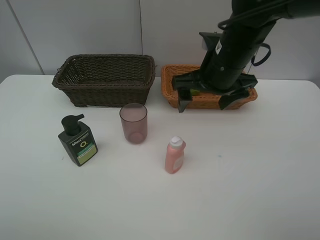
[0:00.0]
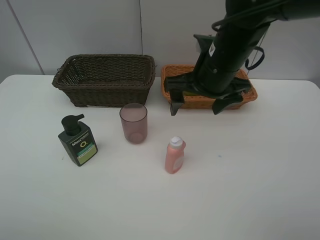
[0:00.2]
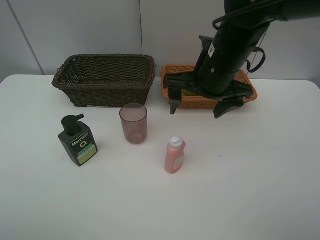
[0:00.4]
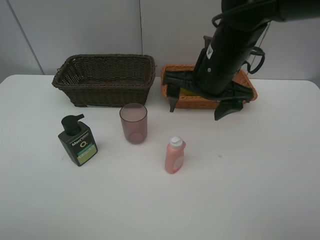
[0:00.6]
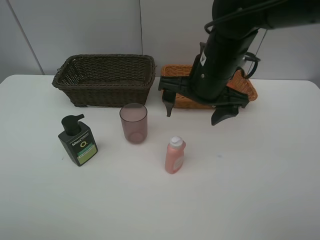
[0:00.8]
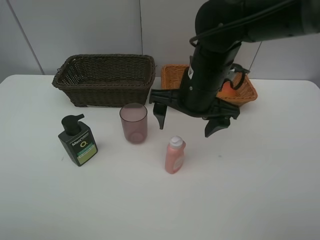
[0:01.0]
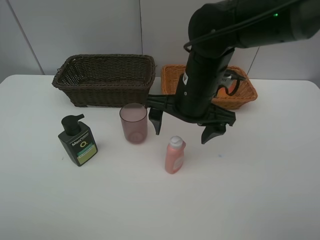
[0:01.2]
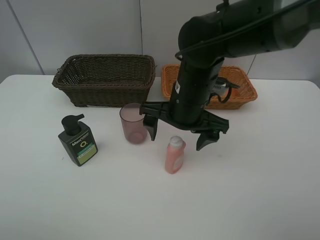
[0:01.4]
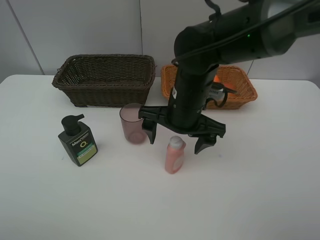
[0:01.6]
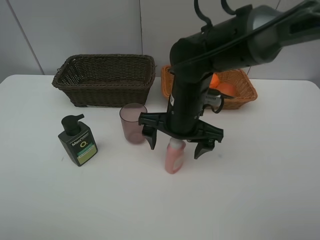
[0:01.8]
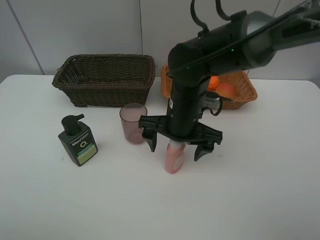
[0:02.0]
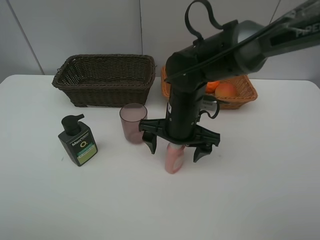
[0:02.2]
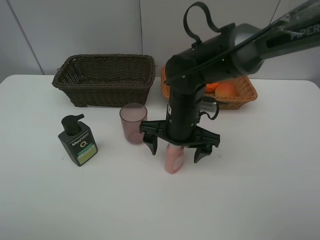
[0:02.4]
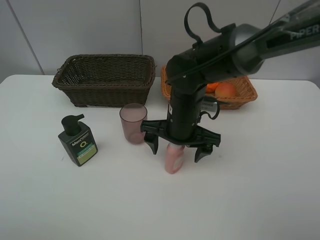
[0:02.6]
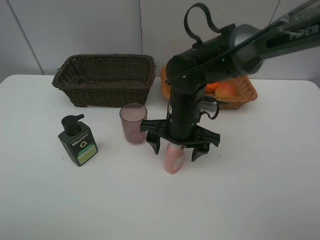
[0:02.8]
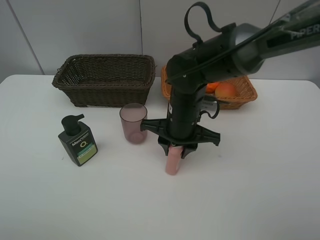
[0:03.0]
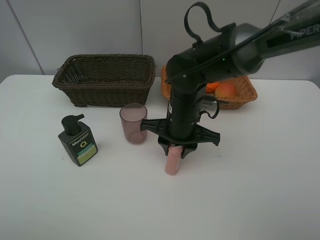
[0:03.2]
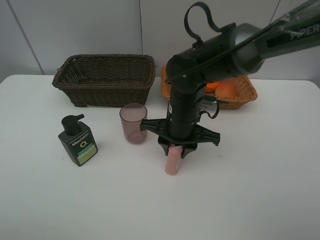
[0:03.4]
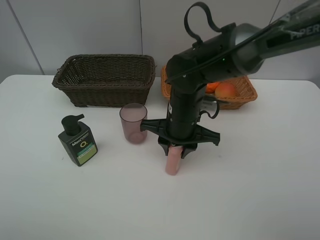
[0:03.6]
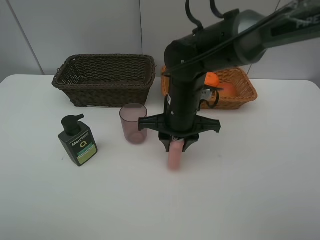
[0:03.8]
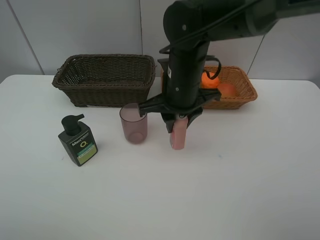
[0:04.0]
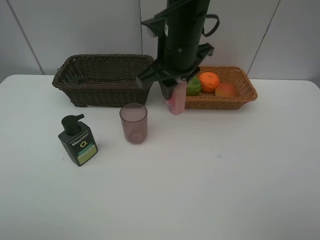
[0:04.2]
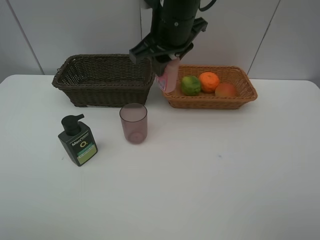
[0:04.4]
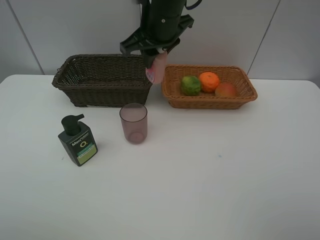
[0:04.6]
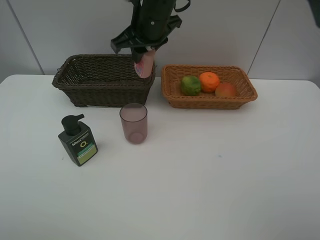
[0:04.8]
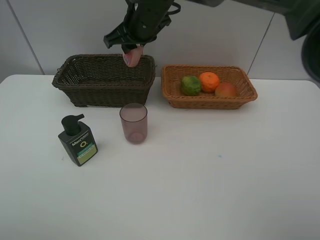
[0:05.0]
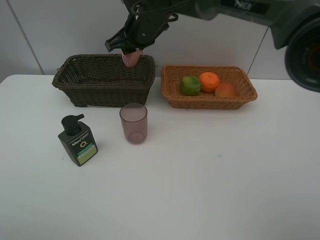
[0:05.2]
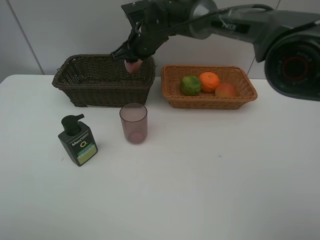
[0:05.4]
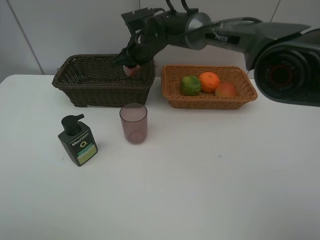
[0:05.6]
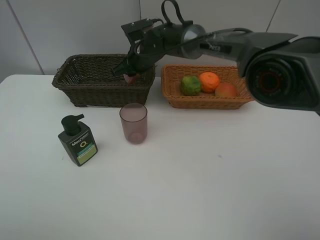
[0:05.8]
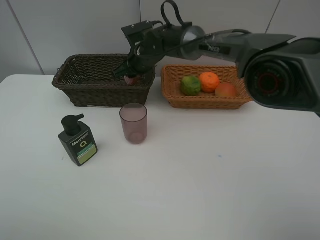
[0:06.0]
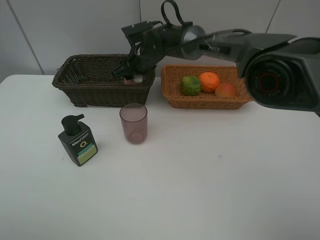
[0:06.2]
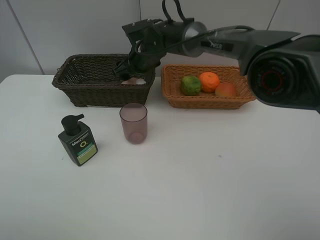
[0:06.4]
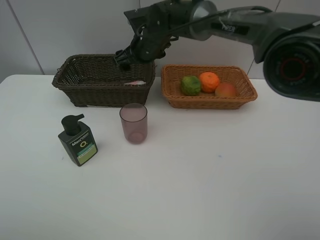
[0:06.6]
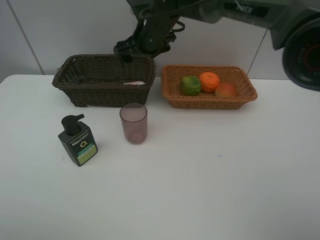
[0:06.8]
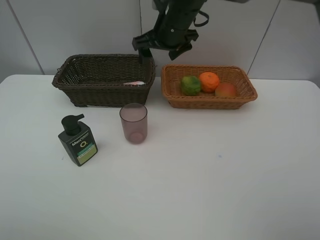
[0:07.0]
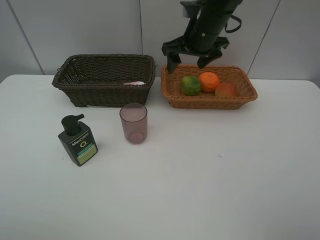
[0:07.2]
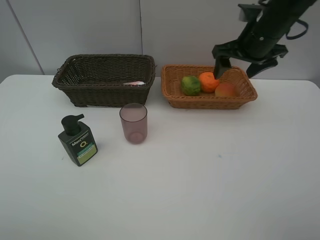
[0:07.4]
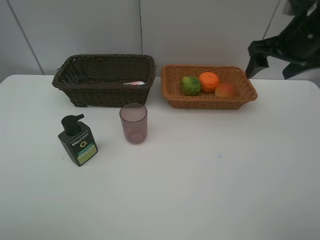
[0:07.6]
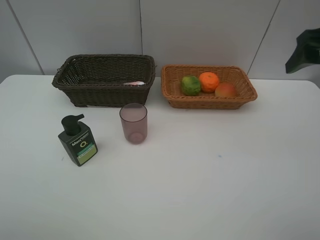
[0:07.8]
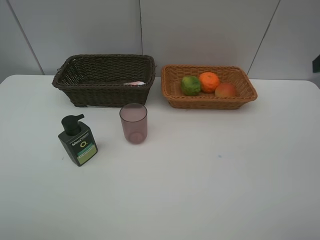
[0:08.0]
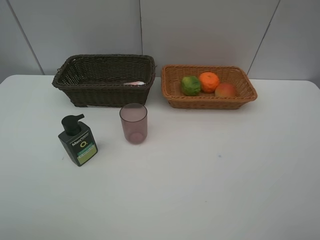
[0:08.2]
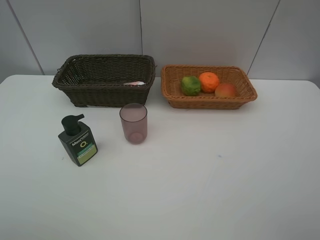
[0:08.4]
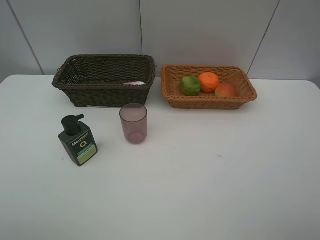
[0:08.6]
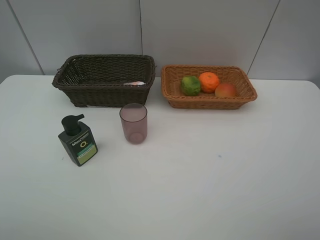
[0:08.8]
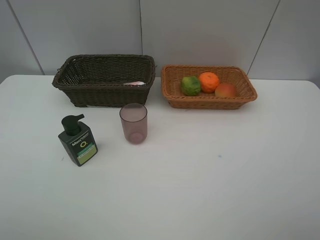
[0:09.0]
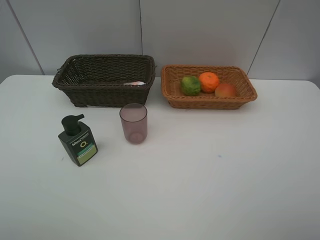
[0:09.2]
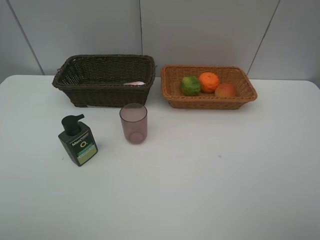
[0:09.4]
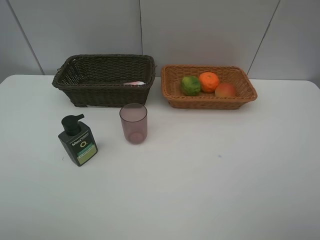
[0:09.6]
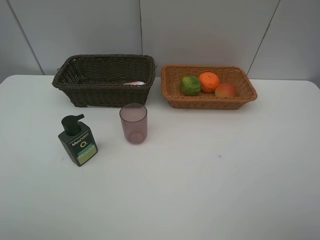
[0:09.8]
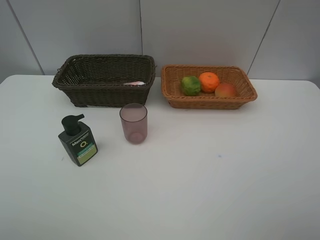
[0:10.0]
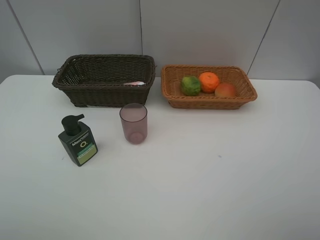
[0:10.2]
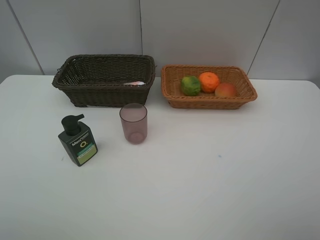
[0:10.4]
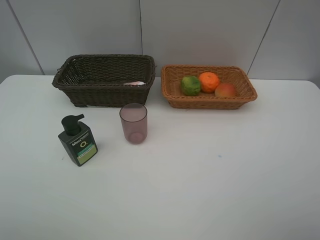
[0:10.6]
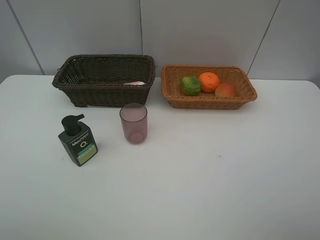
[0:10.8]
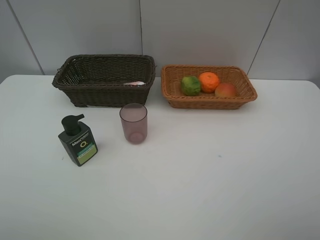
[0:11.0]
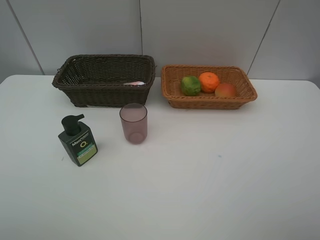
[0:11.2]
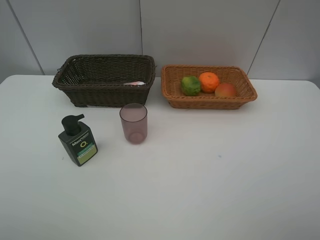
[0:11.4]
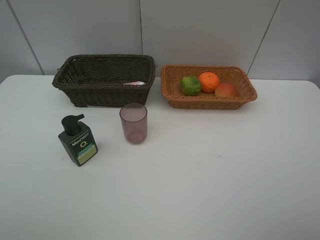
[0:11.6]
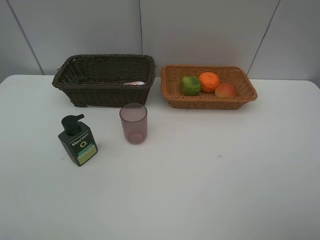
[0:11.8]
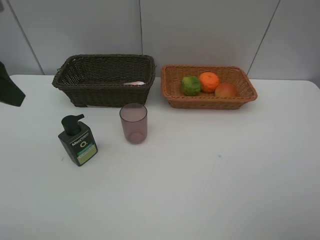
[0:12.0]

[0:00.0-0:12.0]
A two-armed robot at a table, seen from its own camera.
Task of the whole recording: place multiple objects separately in different baskets.
0:00.0 to 0:01.6: The right gripper is displaced to the left and downward by approximately 10 cm.
0:01.6 to 0:03.0: The right gripper closes its fingers.
0:03.0 to 0:04.4: The right gripper goes roughly 15 cm upward.
0:04.4 to 0:06.0: The right gripper moves downward and forward, some 20 cm.
0:06.0 to 0:07.6: The right gripper travels to the right, backward and upward by some 35 cm, and opens up.
0:07.6 to 0:09.0: The right gripper is displaced backward by approximately 35 cm.
0:10.4 to 0:12.0: The left gripper goes roughly 20 cm forward.

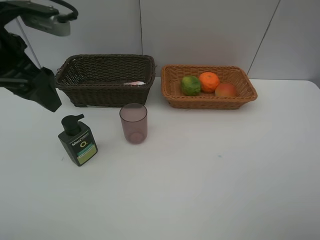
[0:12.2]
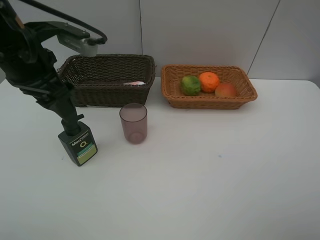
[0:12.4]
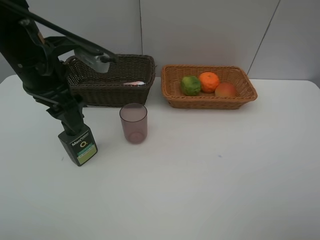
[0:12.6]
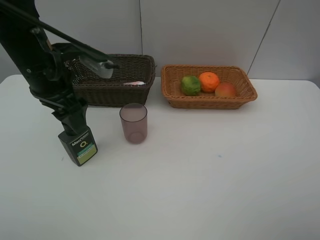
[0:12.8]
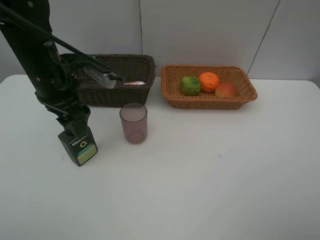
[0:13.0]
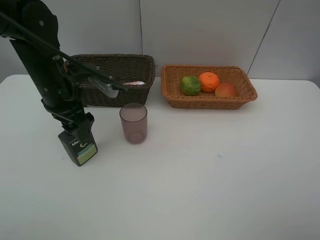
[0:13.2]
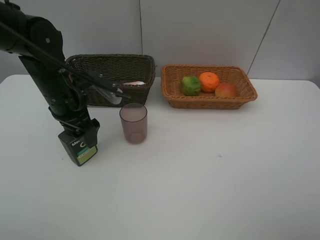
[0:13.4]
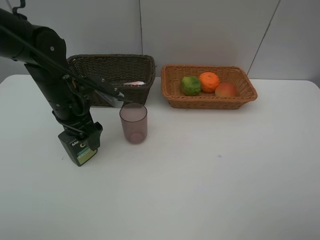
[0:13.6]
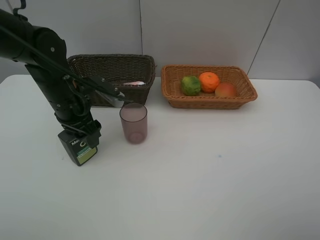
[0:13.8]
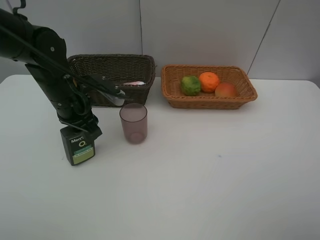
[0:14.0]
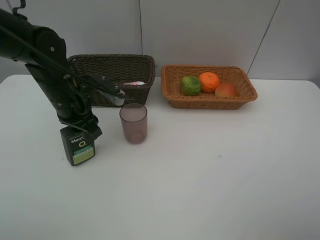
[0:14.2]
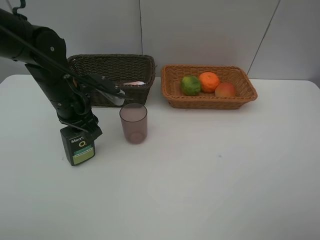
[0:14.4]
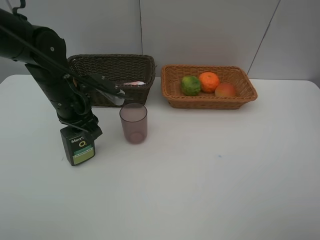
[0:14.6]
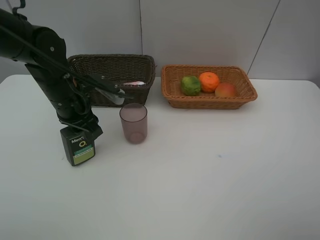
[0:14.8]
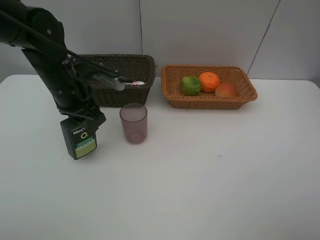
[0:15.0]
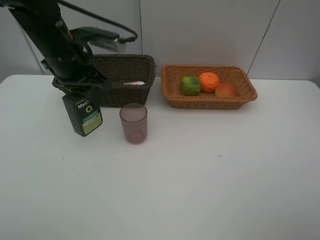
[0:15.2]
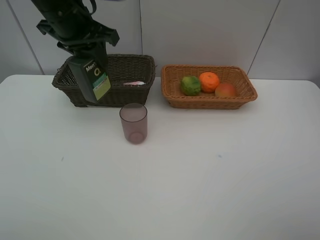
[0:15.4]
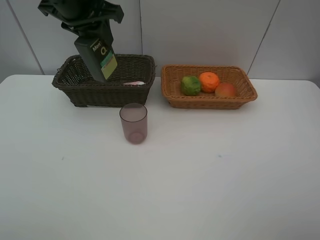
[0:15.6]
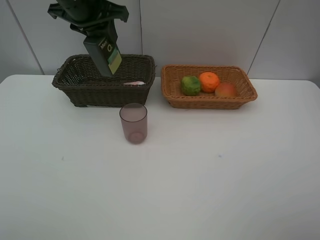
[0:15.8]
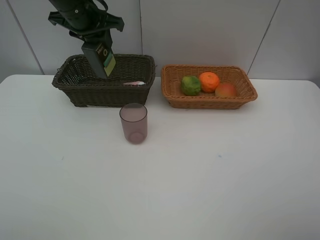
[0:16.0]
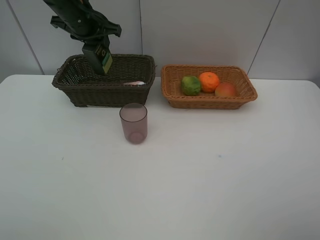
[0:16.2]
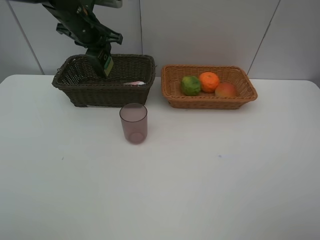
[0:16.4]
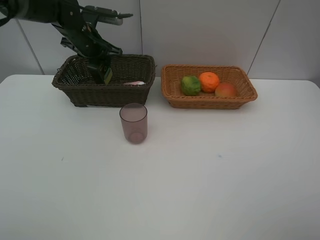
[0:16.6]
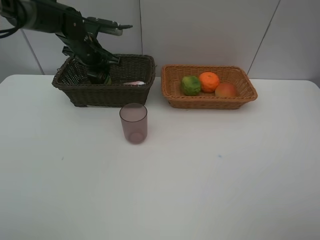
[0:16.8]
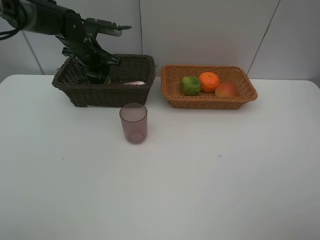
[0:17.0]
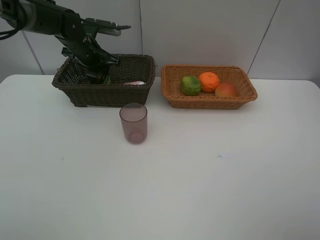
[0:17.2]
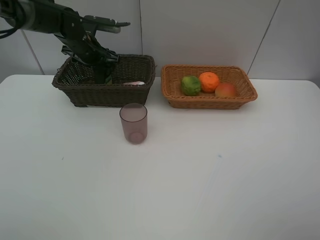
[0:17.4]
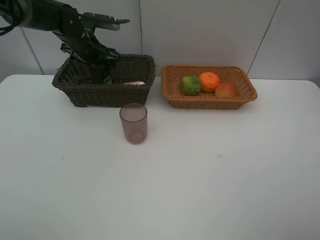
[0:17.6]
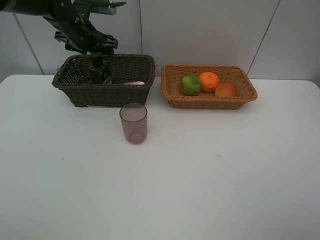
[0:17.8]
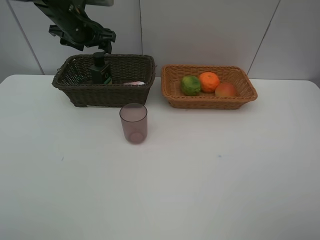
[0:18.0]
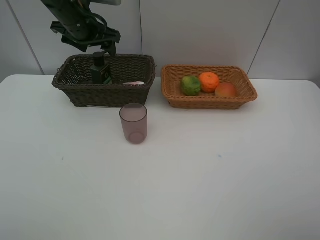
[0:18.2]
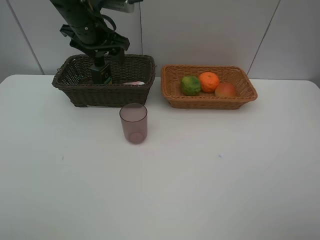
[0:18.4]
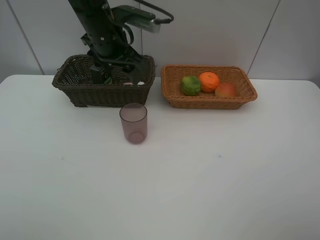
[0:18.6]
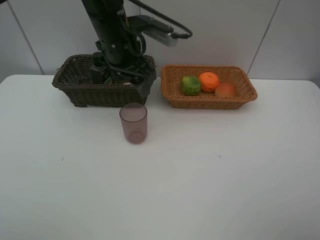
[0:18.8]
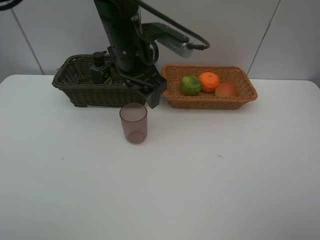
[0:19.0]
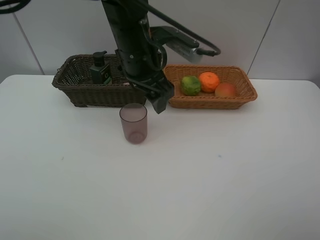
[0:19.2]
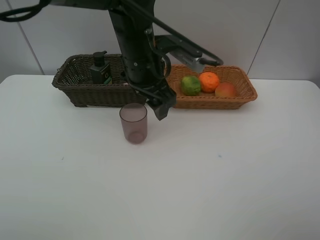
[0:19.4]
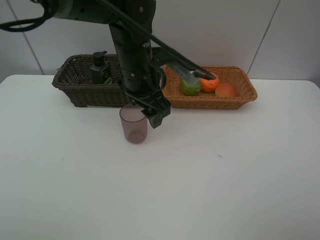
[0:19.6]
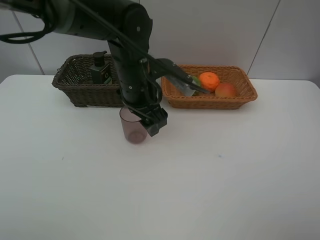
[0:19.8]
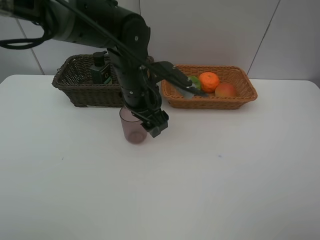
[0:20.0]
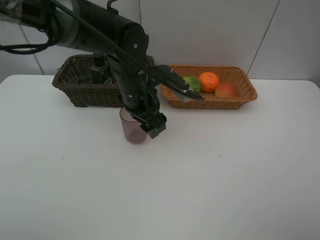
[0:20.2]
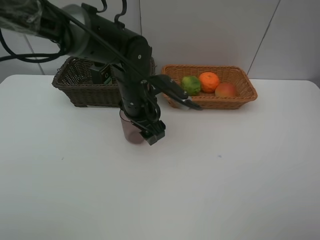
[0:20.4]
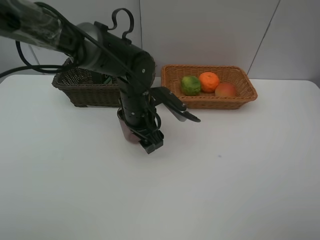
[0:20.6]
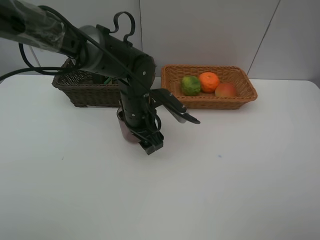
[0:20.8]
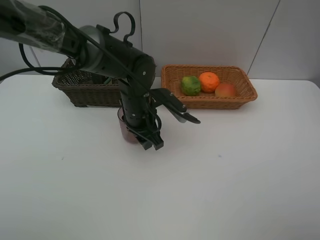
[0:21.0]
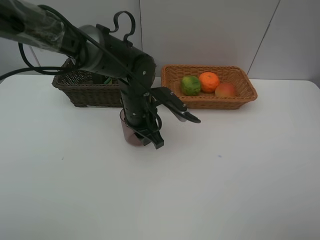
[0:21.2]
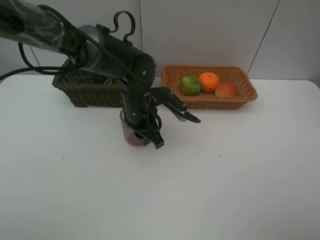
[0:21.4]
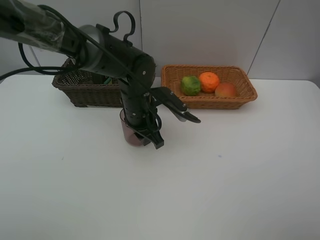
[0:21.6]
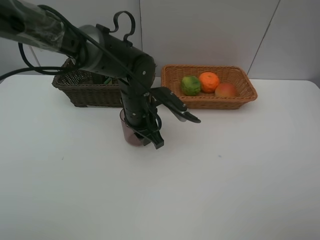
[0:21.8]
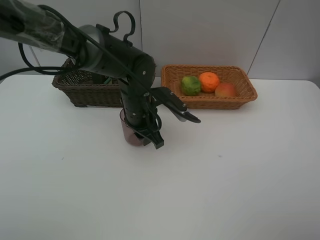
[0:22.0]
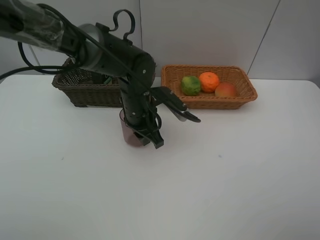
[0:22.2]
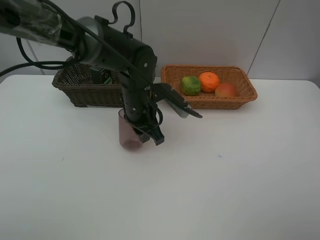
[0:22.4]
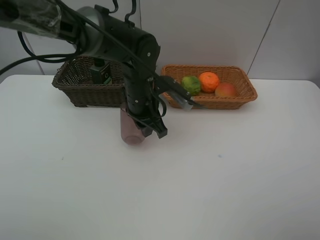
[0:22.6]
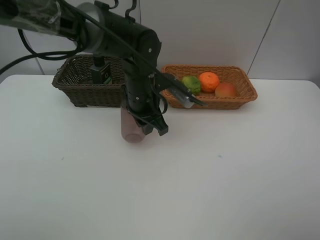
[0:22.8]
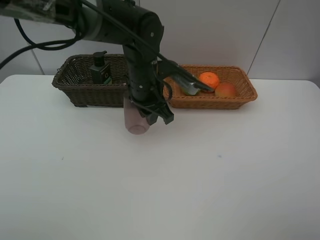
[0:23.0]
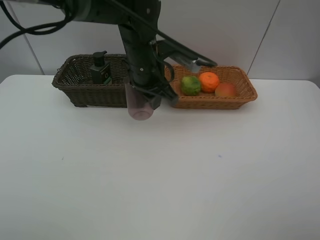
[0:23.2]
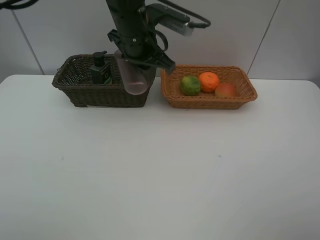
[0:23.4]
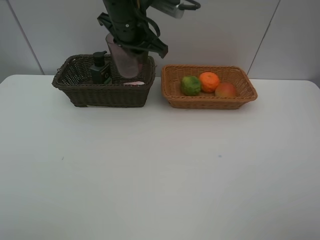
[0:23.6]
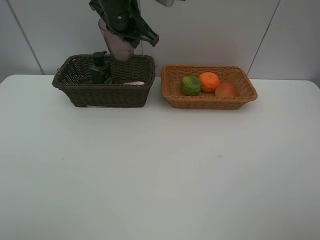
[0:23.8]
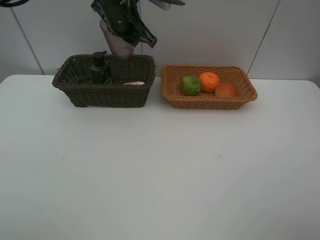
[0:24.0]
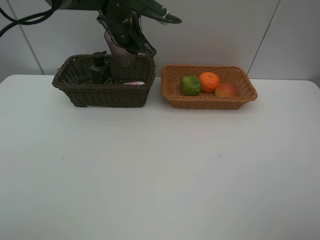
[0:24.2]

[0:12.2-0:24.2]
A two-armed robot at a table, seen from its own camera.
Task of the whole recording: place multiple objects separately in different baskets.
0:12.2 to 0:13.8: The left gripper is displaced downward by some 15 cm, and closes.
0:13.8 to 0:15.2: The left gripper moves upward, approximately 10 cm.
0:15.2 to 0:16.6: The left gripper moves forward and downward, about 15 cm.
0:16.6 to 0:18.2: The left gripper is displaced upward by roughly 5 cm, and opens its fingers.
0:18.2 to 0:19.8: The left gripper shifts some 20 cm to the right, backward and downward.
0:19.8 to 0:21.2: The left gripper shifts about 5 cm downward, and closes up.
0:21.2 to 0:22.6: The grippers move only a little.
0:22.6 to 0:24.2: The left gripper shifts roughly 15 cm forward and upward.
